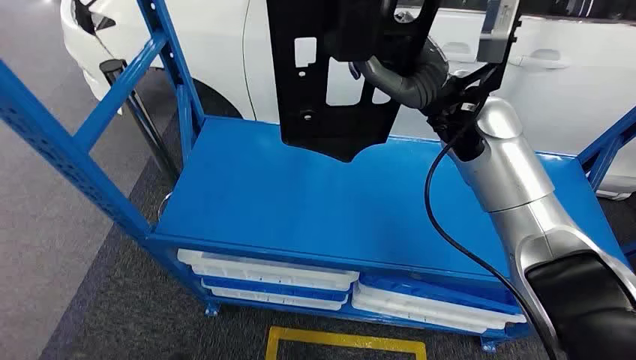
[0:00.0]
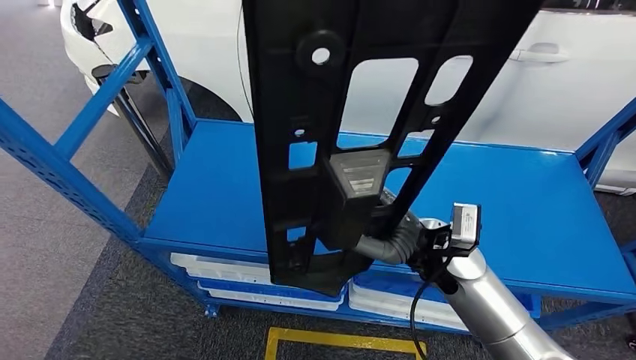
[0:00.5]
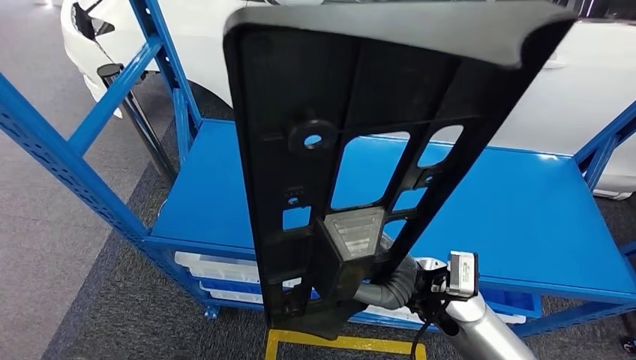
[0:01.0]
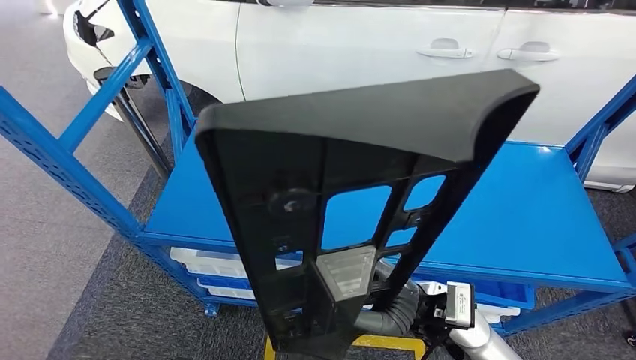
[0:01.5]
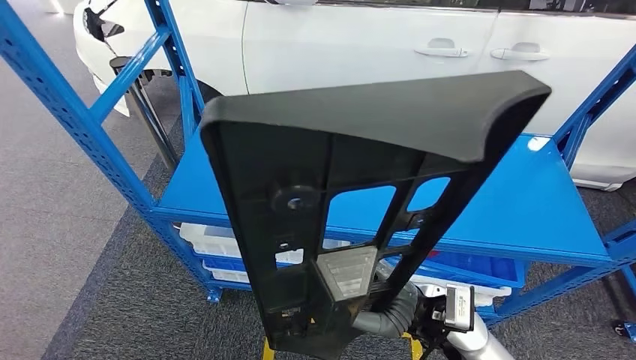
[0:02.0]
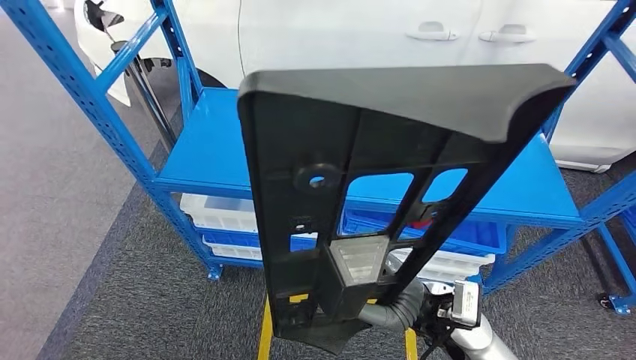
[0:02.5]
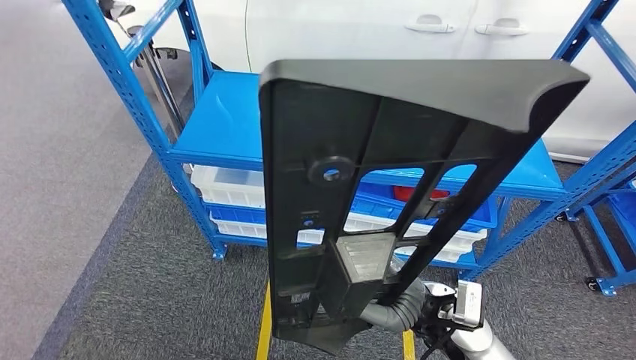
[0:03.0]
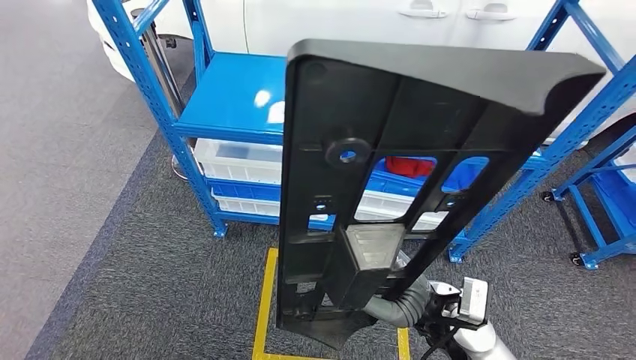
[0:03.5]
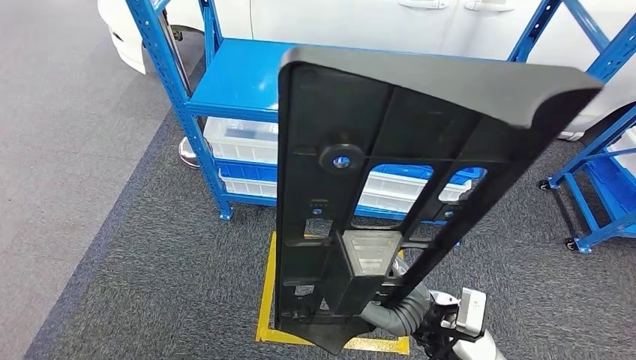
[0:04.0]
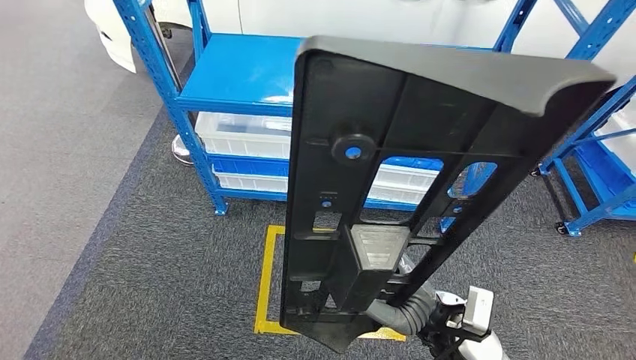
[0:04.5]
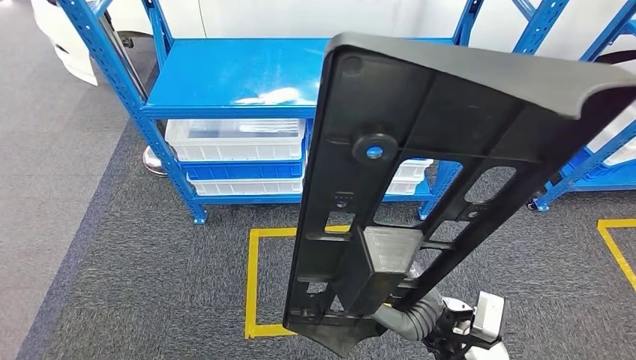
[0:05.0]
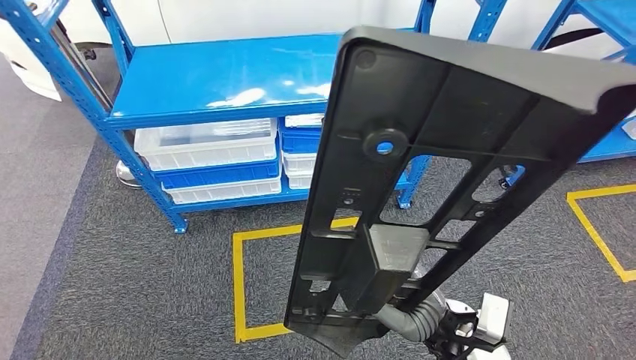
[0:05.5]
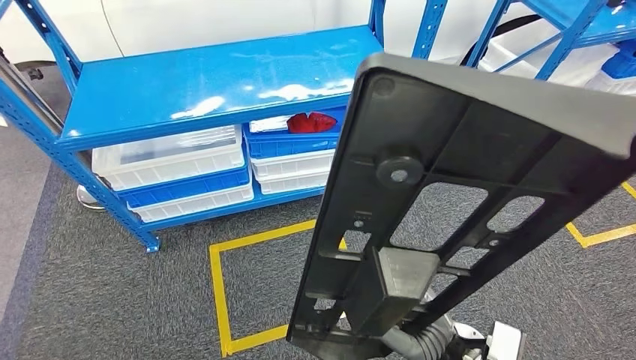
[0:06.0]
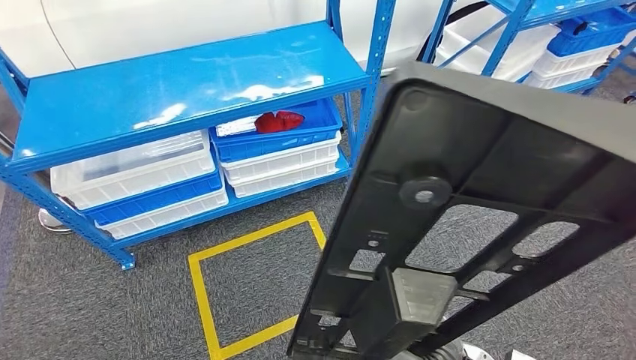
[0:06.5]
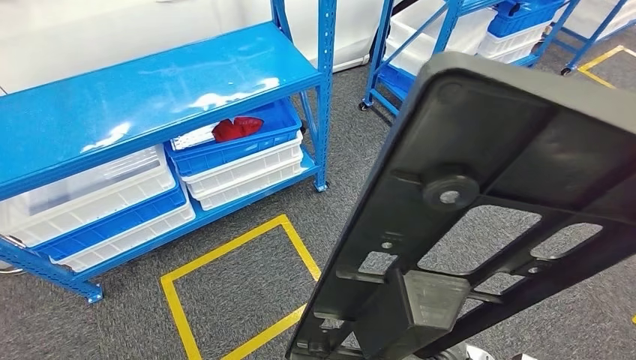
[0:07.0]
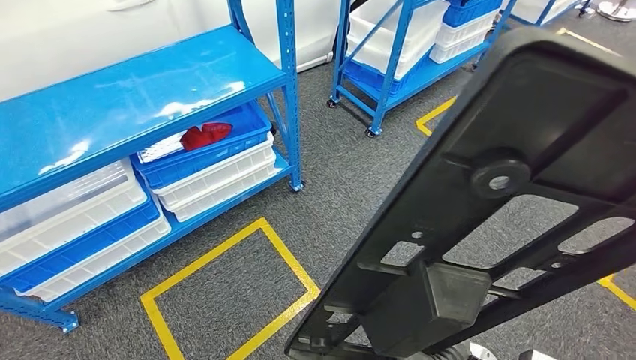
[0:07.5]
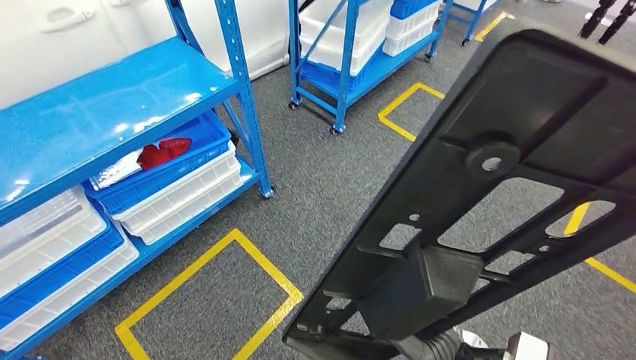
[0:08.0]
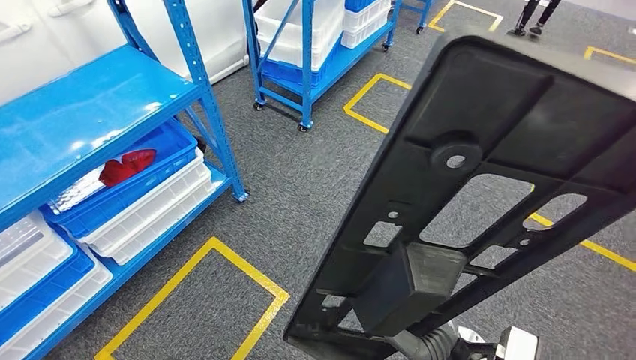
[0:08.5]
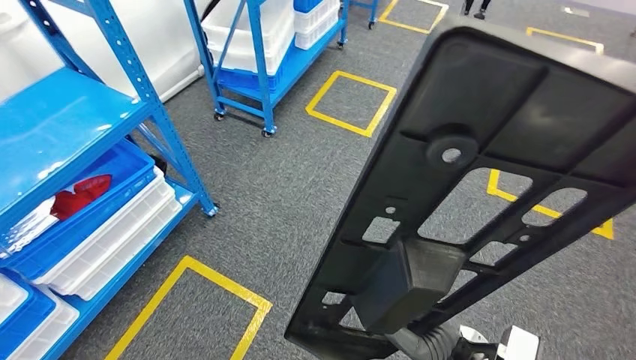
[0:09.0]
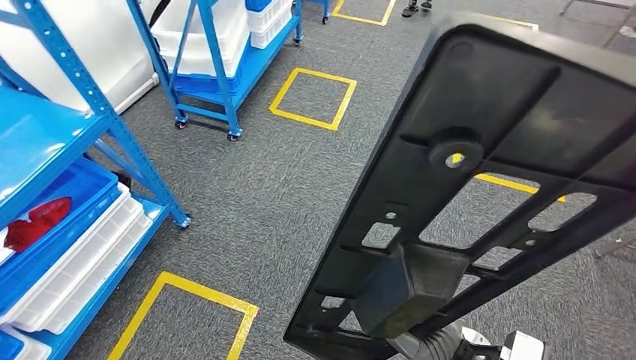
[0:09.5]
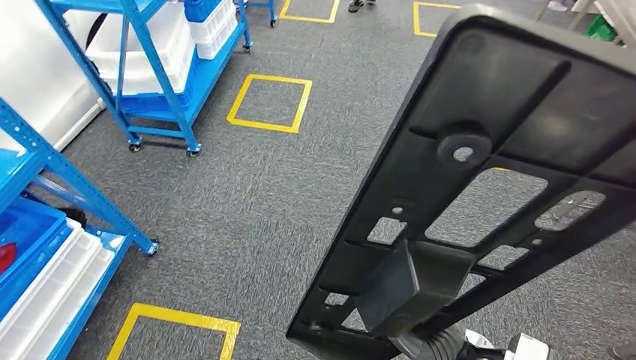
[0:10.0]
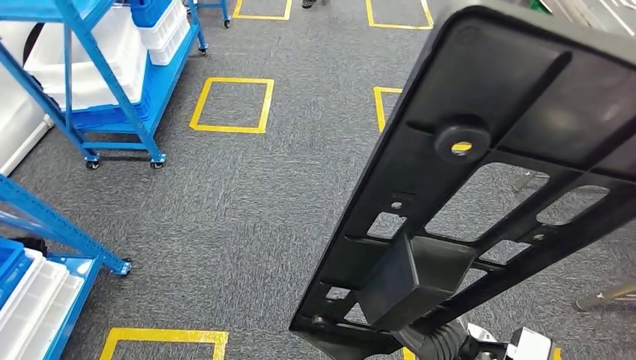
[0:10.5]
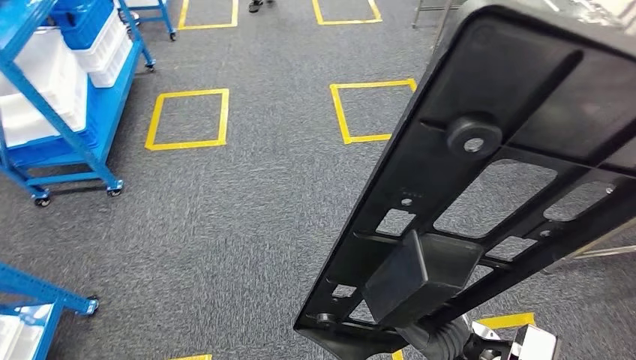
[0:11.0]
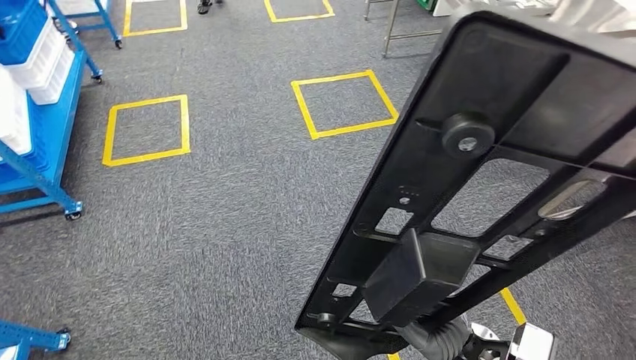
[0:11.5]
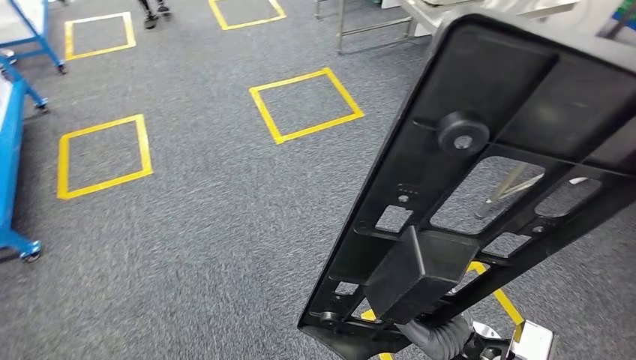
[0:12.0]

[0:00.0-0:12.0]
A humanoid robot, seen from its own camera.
Step, 0:00.0 to 0:03.0: Pick up the large parts from the shelf.

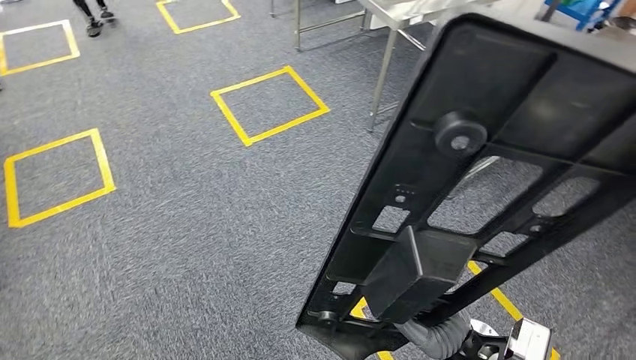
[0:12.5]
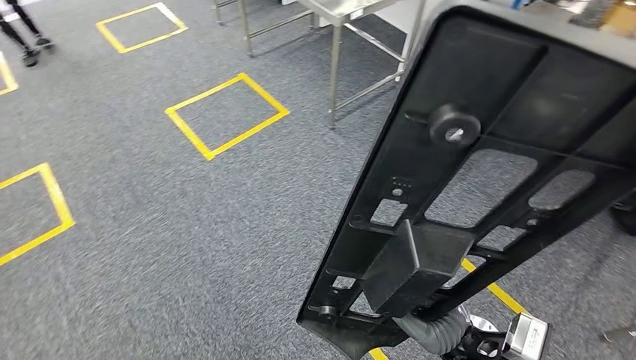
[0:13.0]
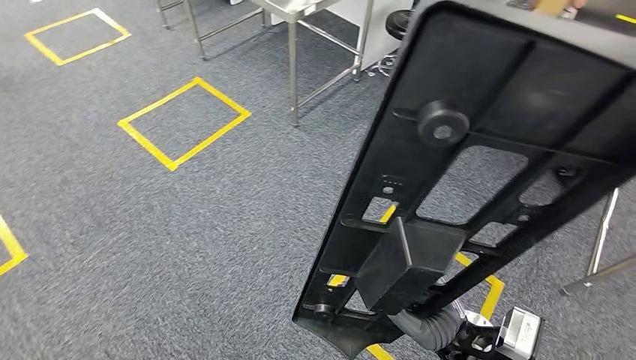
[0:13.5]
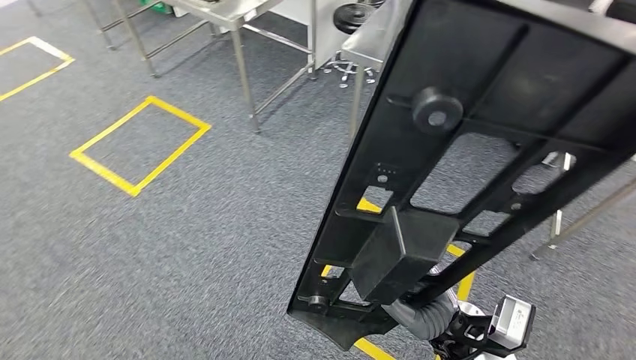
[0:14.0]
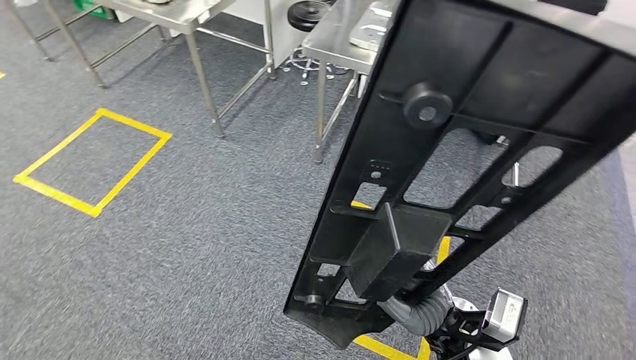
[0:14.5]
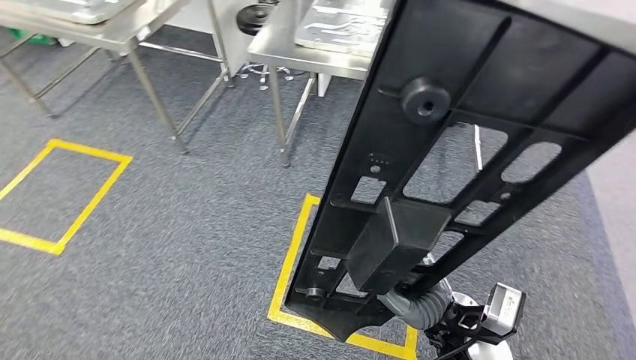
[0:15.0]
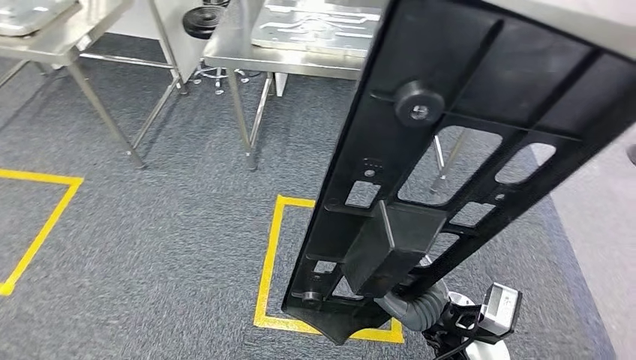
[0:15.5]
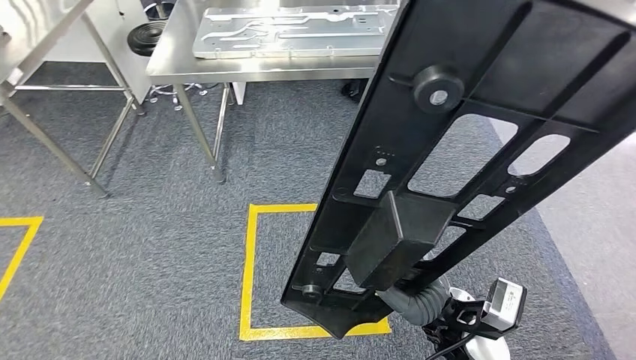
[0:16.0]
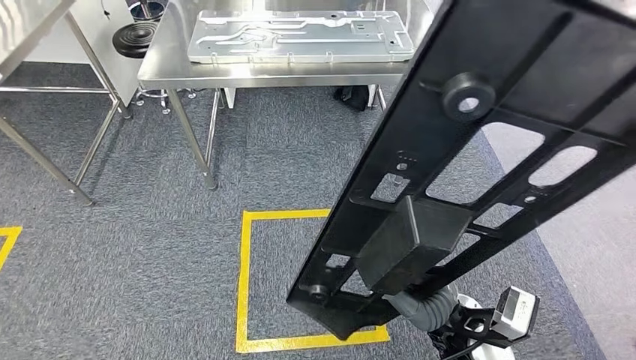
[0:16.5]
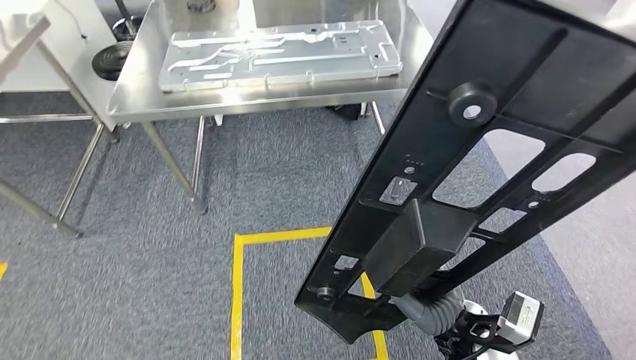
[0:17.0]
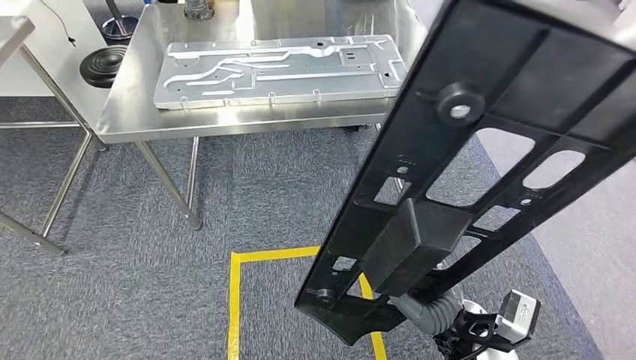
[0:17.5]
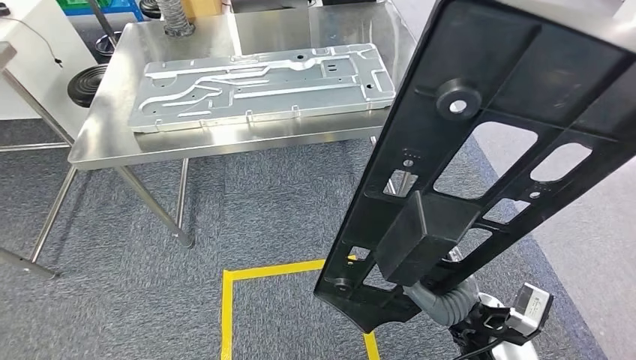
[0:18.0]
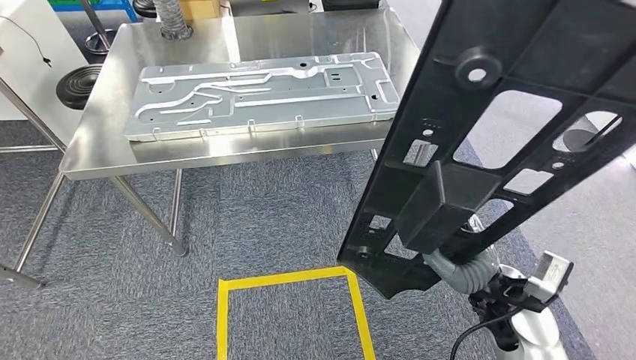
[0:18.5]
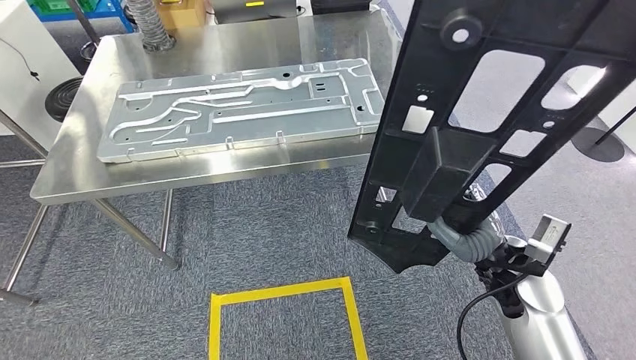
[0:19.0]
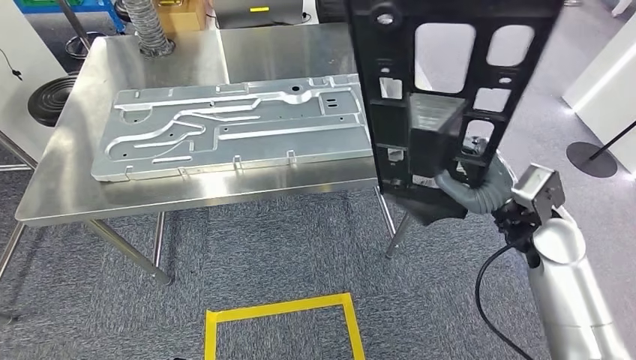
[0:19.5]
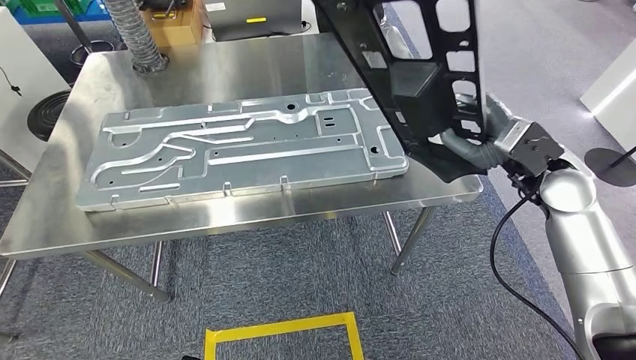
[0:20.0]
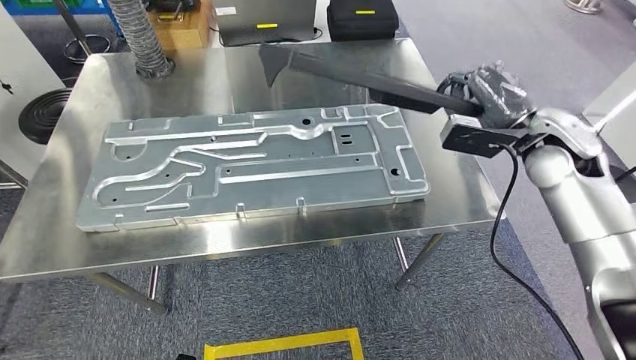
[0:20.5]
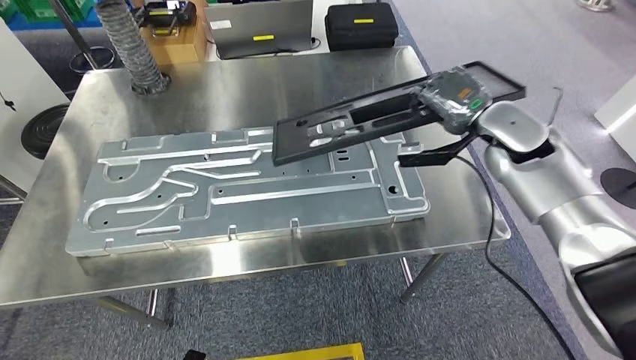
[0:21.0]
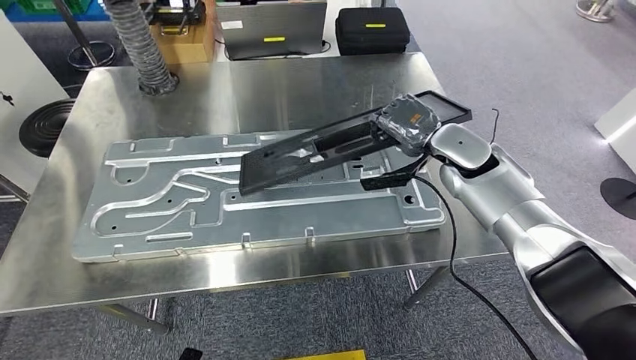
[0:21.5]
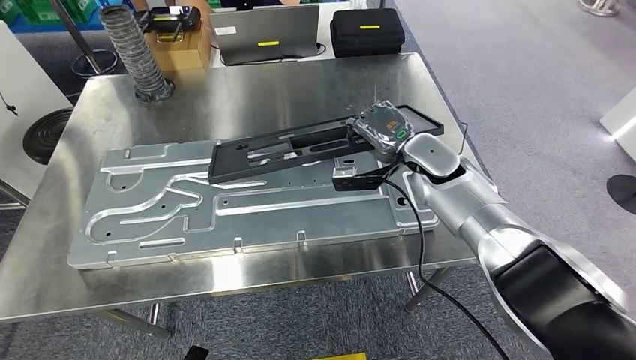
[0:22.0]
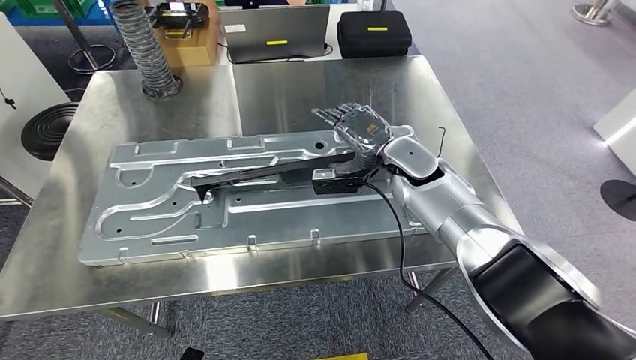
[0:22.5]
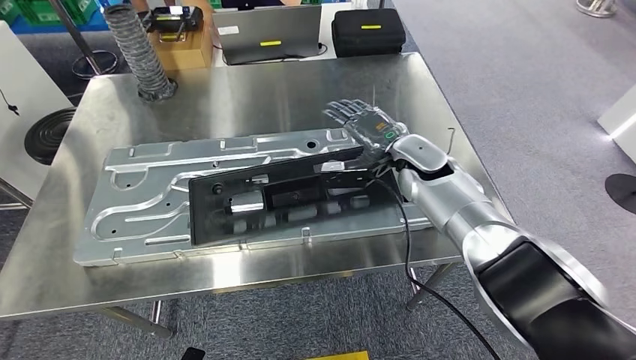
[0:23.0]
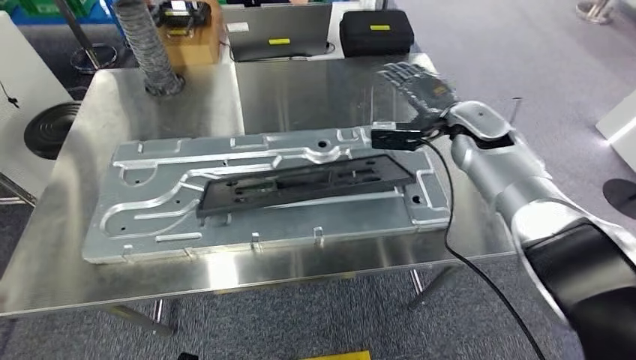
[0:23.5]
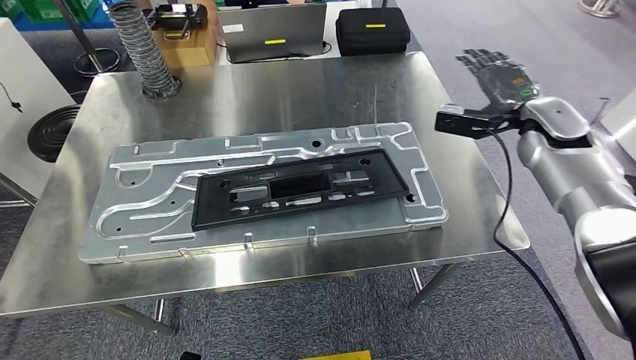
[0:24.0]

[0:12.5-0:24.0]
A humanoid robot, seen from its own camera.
Step, 0:12.5 to 0:21.0: Move the large parts to the workbench.
